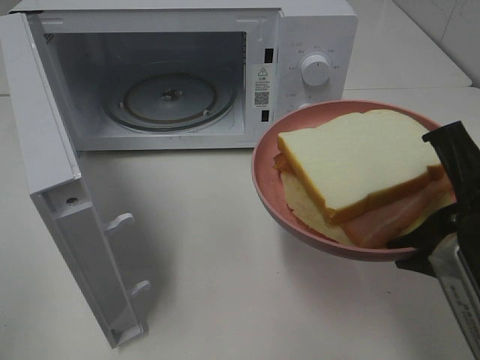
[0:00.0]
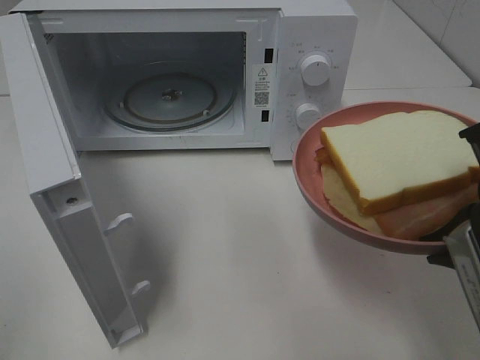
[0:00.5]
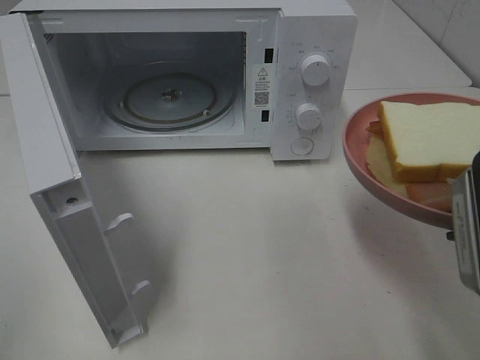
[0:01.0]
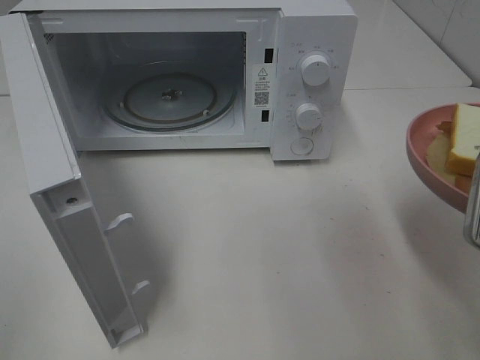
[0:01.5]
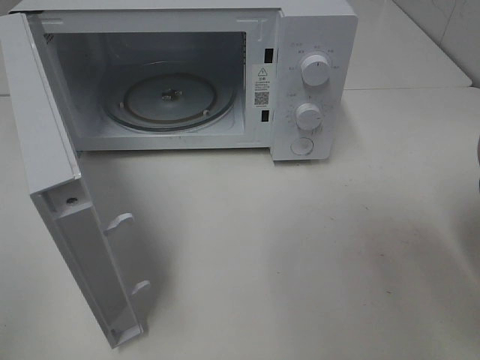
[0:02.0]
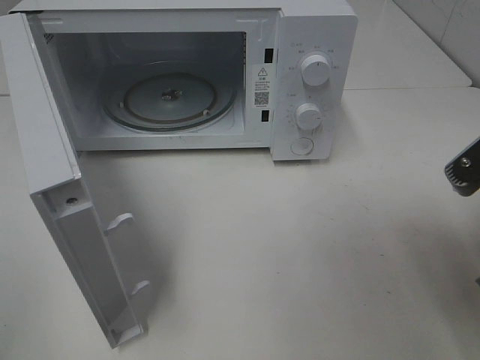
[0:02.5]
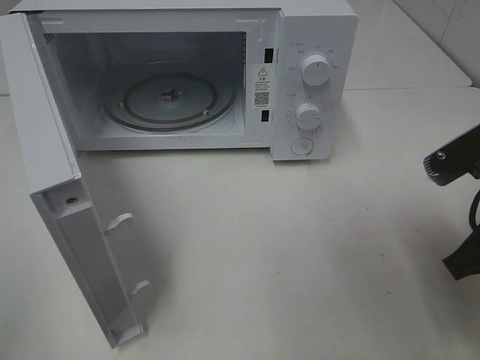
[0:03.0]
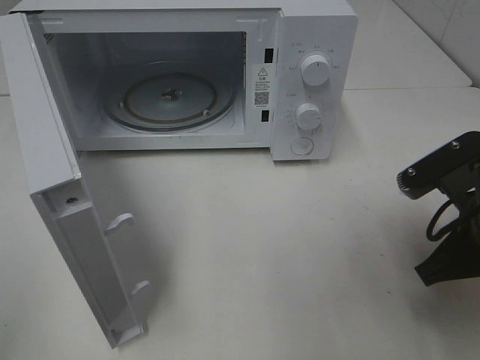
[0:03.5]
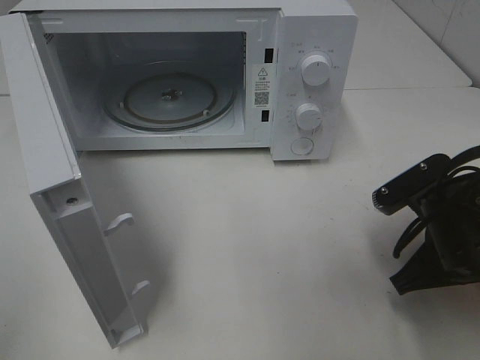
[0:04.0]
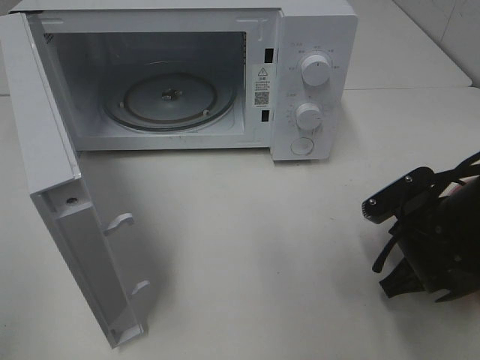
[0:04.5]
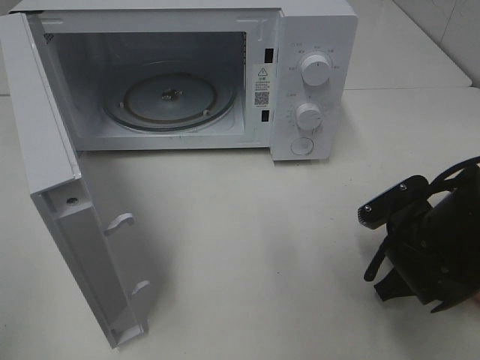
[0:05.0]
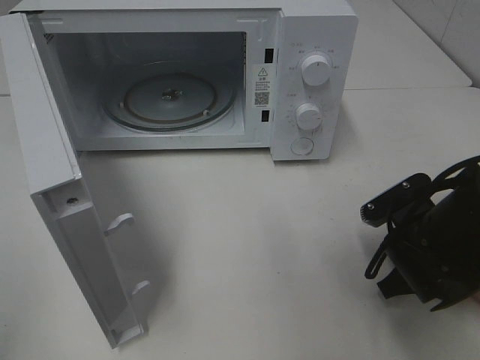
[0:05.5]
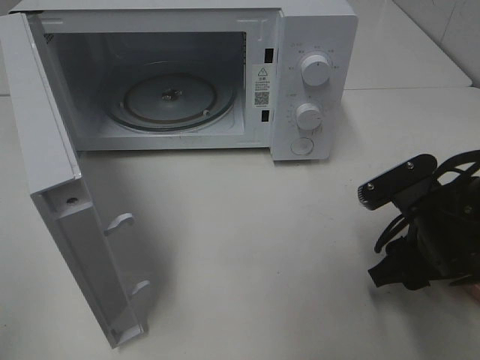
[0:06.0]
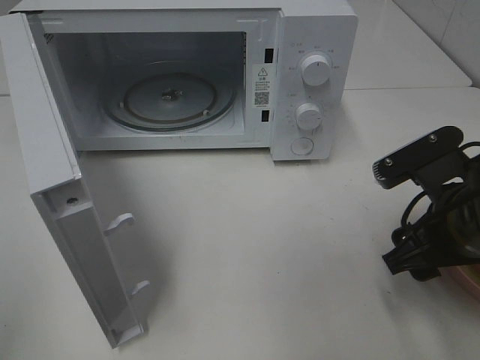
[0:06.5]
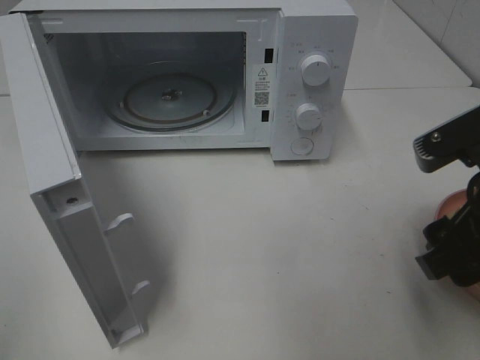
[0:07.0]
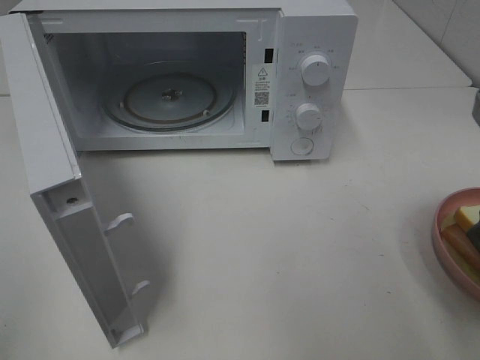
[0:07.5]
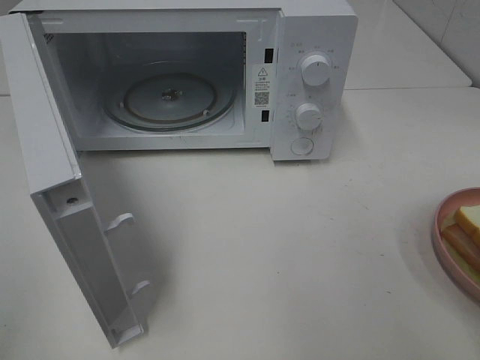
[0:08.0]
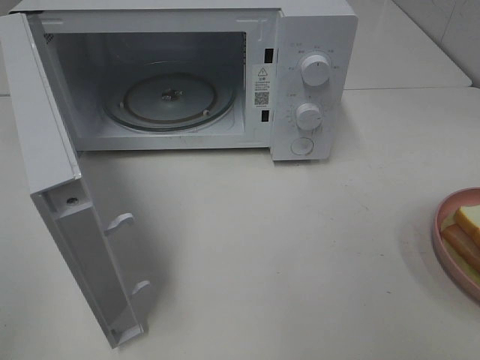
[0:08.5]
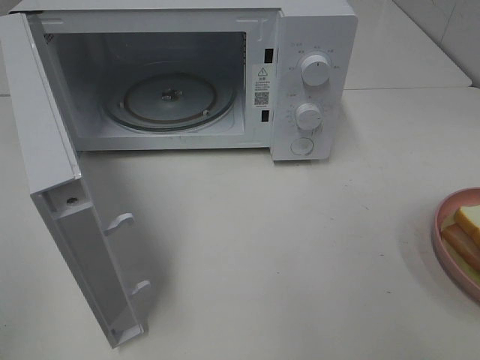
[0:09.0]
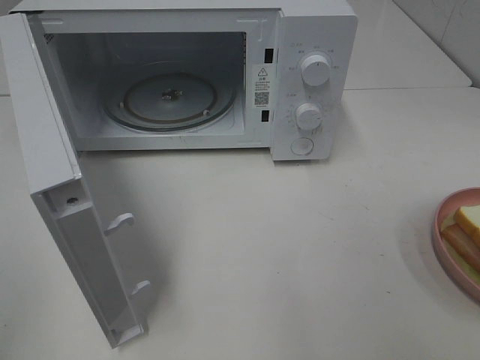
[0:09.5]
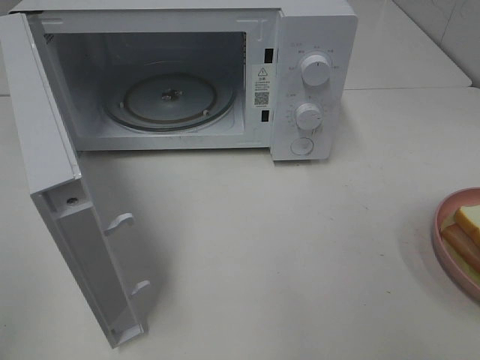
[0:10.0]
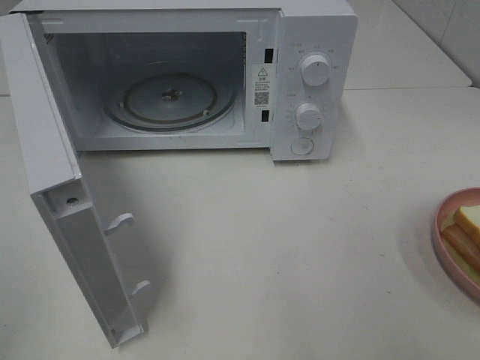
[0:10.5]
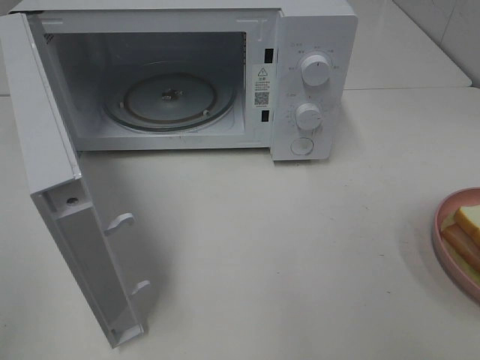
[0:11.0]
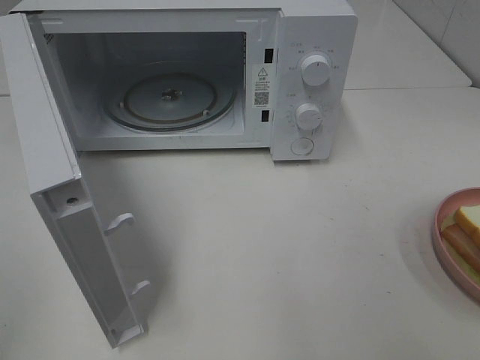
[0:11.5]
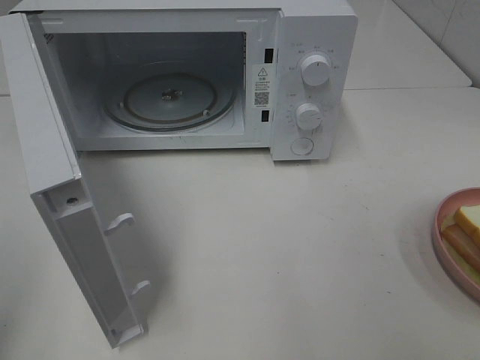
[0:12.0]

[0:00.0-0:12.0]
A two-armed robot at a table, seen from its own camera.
Task of the whole recording: Heat Sandwich.
Step, 0:00.0 to 0:07.0: Right hand: place the plate on the table.
0:00.0 to 0:02.0: The right gripper heads to the right, covering some 5 cm.
0:02.0 to 0:04.0: The right gripper is displaced downward and forward by roughly 15 cm.
0:04.0 to 0:06.0: The right gripper opens.
0:06.0 to 0:08.0: The right gripper heads upward and backward, covering approximately 20 cm.

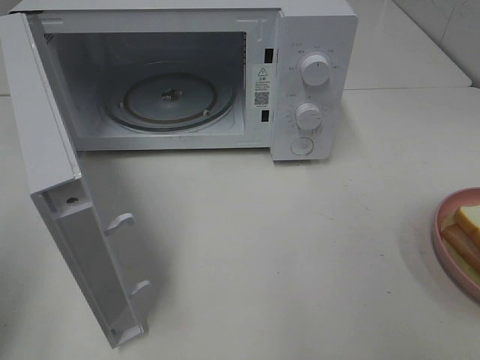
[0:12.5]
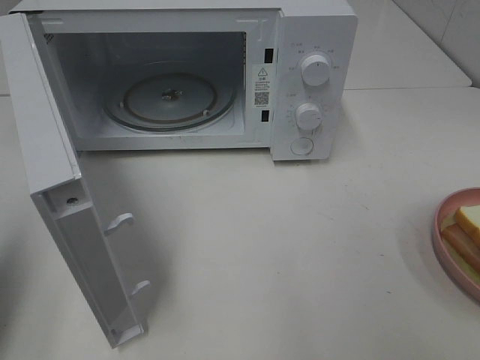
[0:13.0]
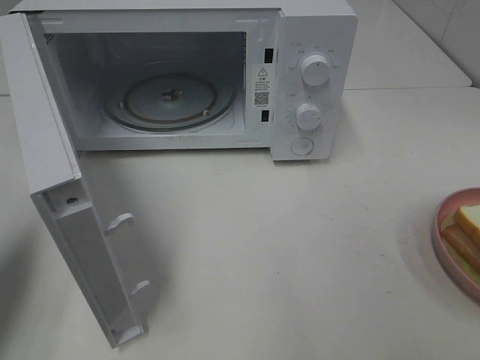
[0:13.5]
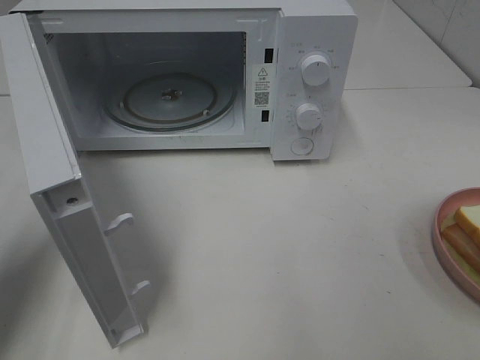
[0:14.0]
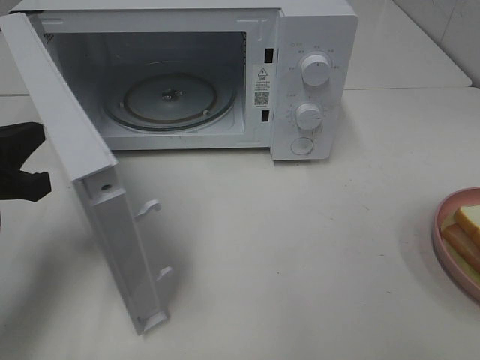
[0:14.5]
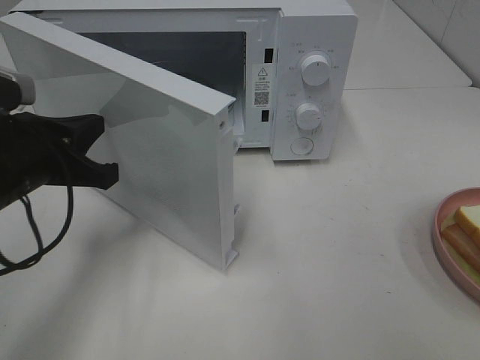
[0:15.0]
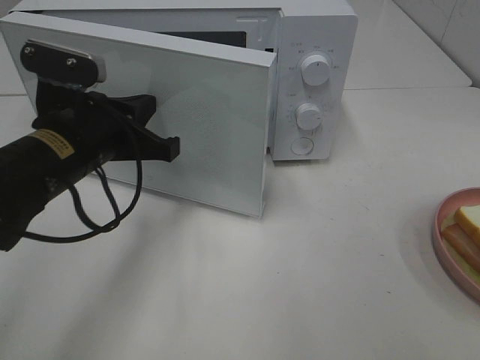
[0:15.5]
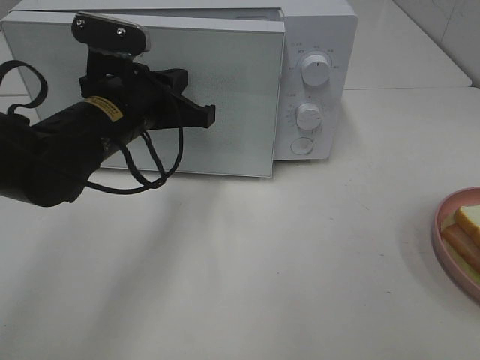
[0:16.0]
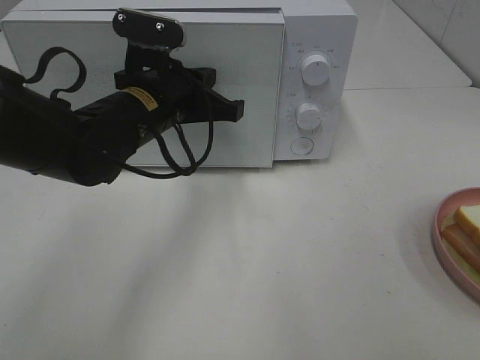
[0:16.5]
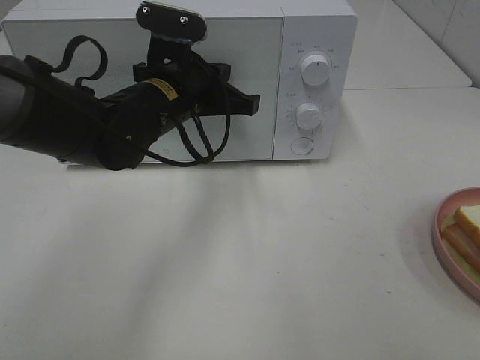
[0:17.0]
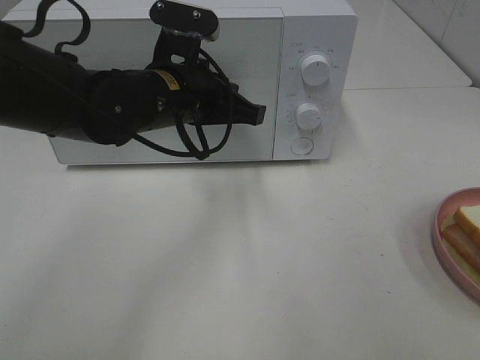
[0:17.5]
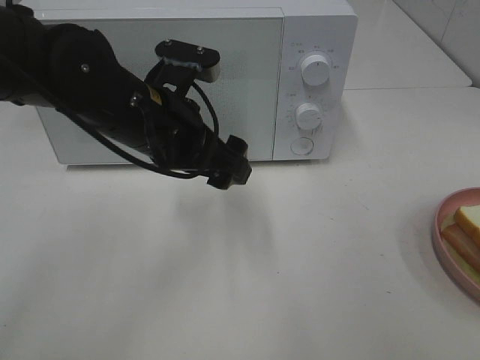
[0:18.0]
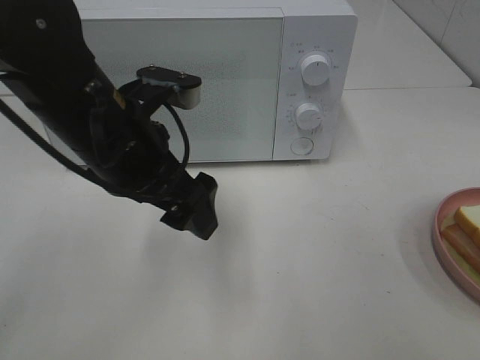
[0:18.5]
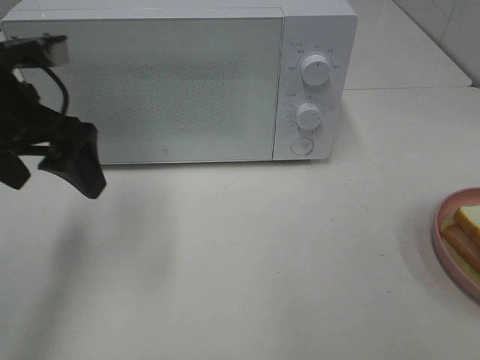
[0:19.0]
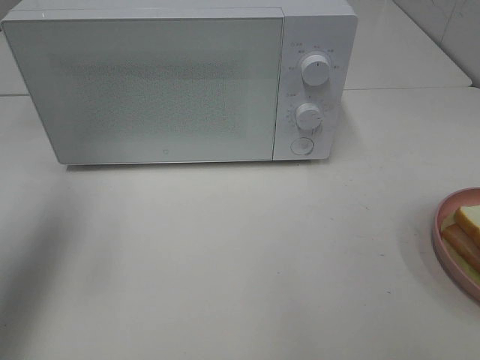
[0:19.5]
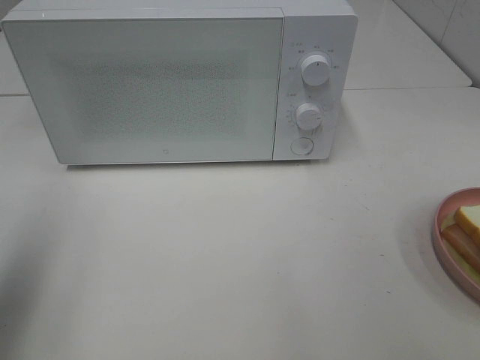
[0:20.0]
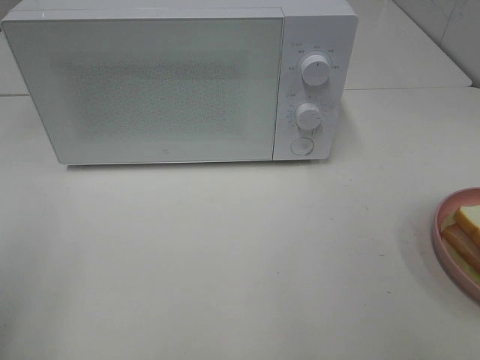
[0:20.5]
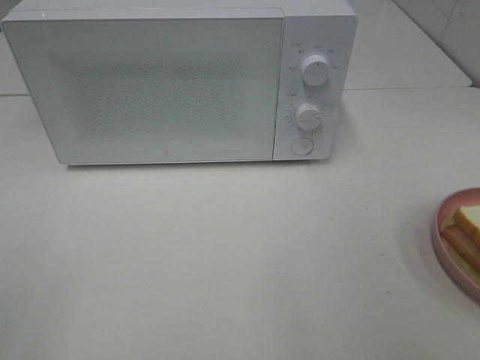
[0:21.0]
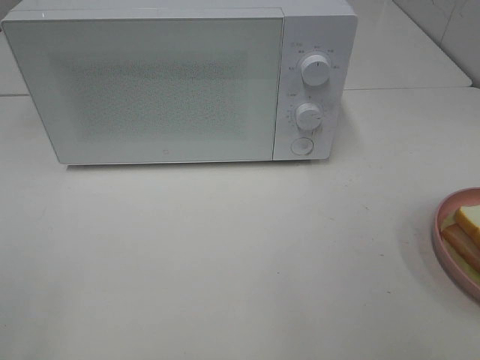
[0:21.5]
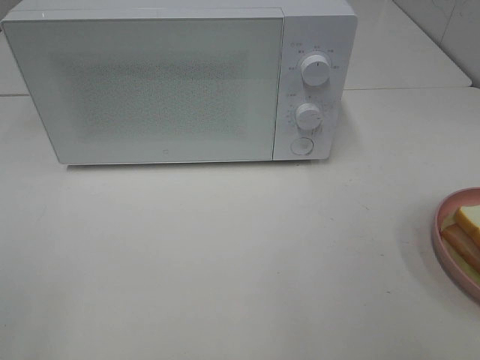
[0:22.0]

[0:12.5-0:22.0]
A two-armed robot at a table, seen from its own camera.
Task of the whole recording: Heat Sandwich.
Step, 0:12.5 to 0:17.5: Left hand: close the microwave door.
0:12.5 to 0:14.5: The left gripper moves forward, downward and to the right, some 20 cm.
0:14.5 to 0:16.5: The left gripper is displaced to the right and forward by approximately 20 cm.
0:16.5 to 0:18.0: The left gripper changes place by some 5 cm, and opens up.
0:18.0 to 0:20.0: The left gripper shifts some 30 cm to the left, backward and upward.
0:20.0 to 0:22.0: The left gripper travels backward by some 15 cm.

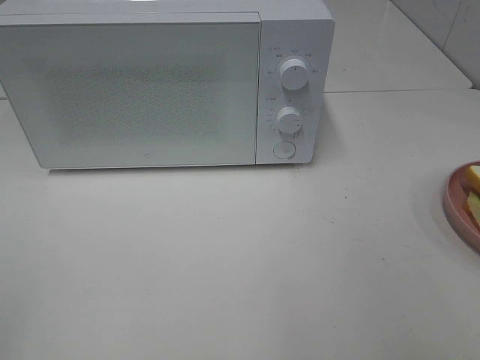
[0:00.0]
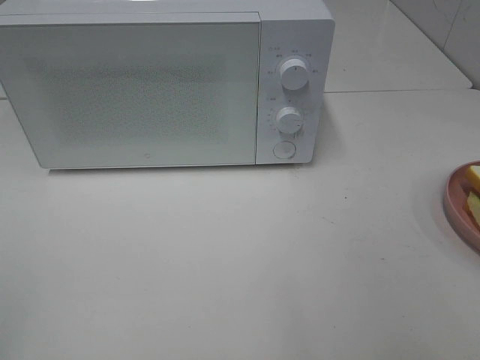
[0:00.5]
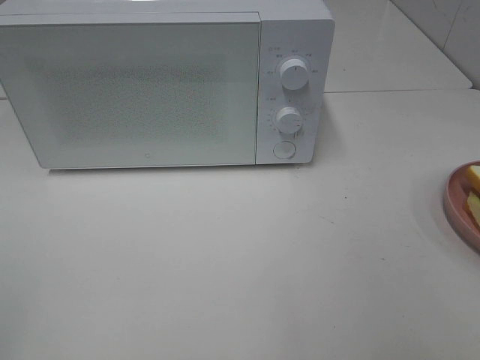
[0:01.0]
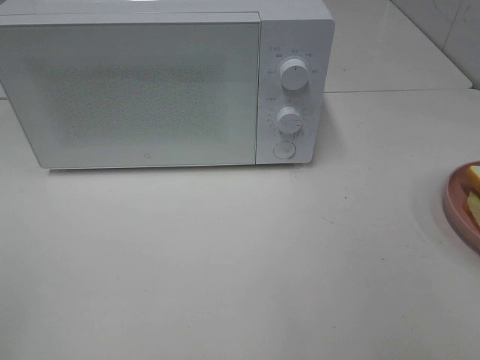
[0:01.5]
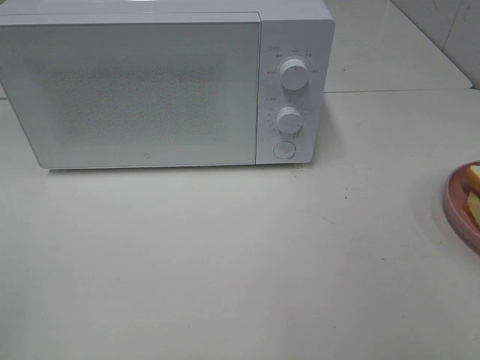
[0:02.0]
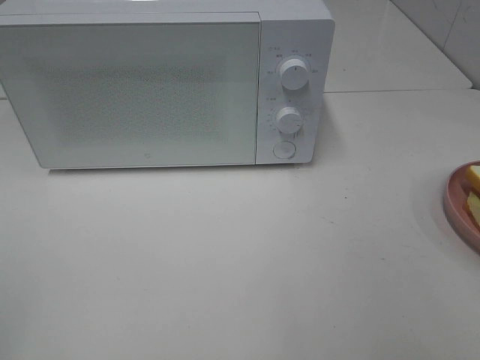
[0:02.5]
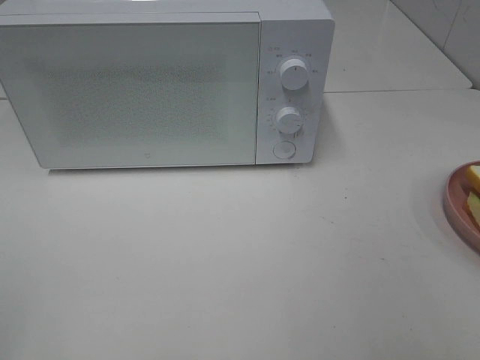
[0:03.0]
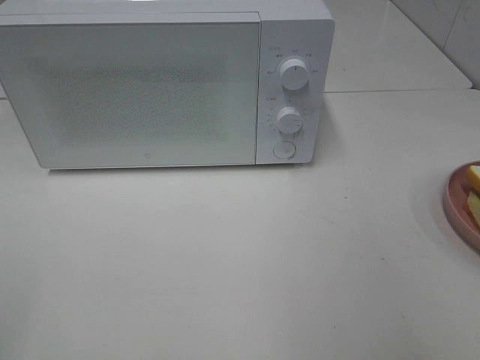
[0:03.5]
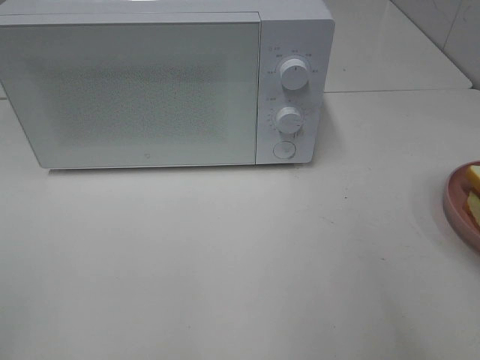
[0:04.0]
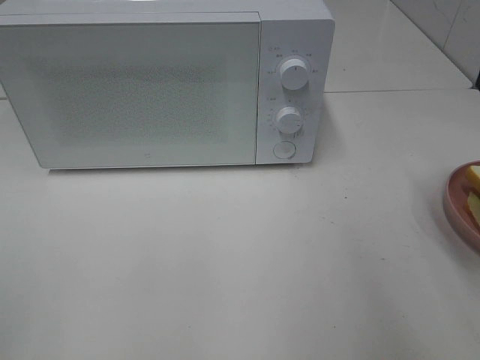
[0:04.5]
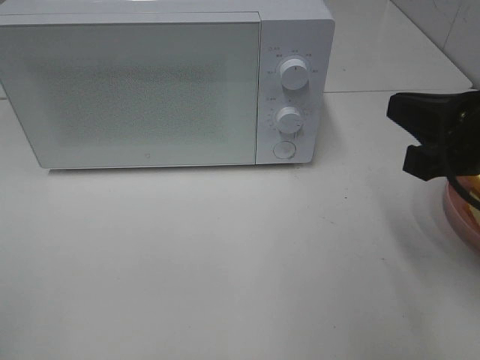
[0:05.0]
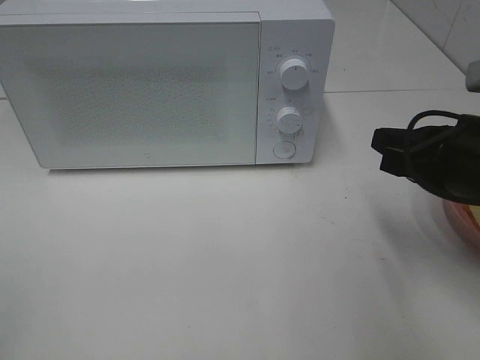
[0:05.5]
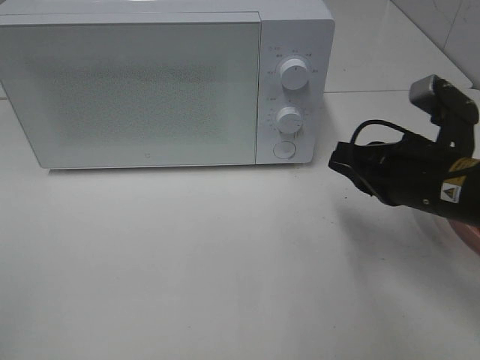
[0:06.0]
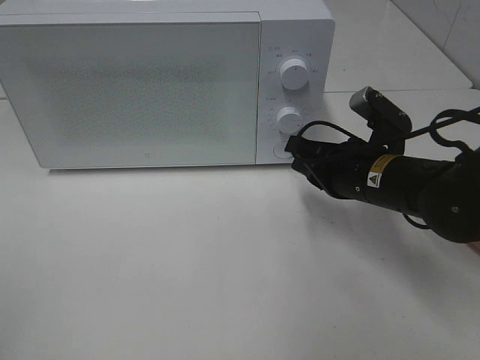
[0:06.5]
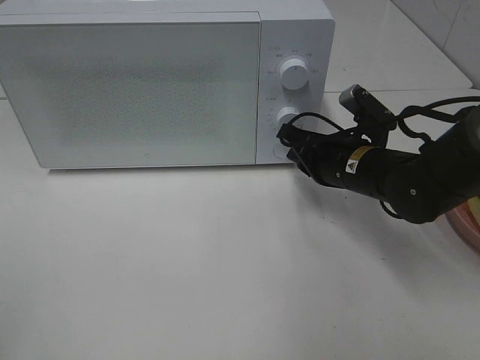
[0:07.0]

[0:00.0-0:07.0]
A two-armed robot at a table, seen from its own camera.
Task of the whole recording: Heat Sandwich.
0:03.5 to 0:05.0: The right gripper is displaced forward, downward and to the left by about 15 cm, and closes.
0:05.0 to 0:07.0: The right gripper heads forward, downward and to the left, covering approximately 20 cm.
